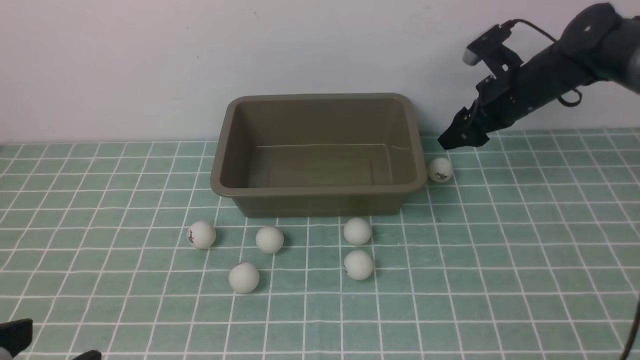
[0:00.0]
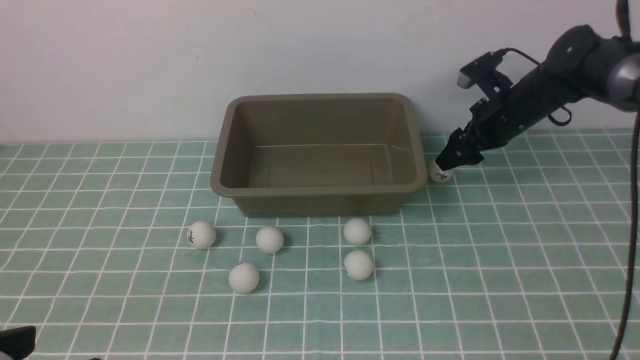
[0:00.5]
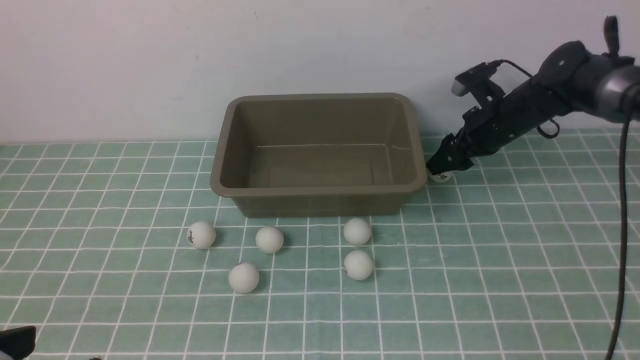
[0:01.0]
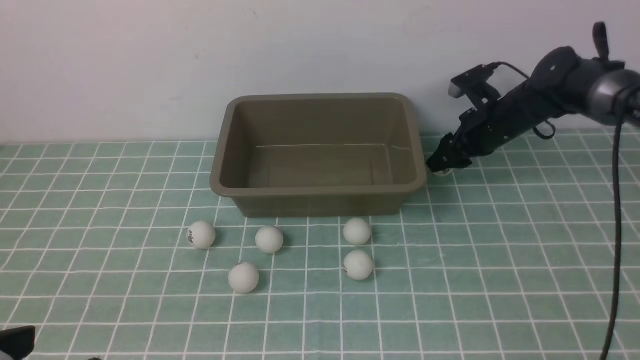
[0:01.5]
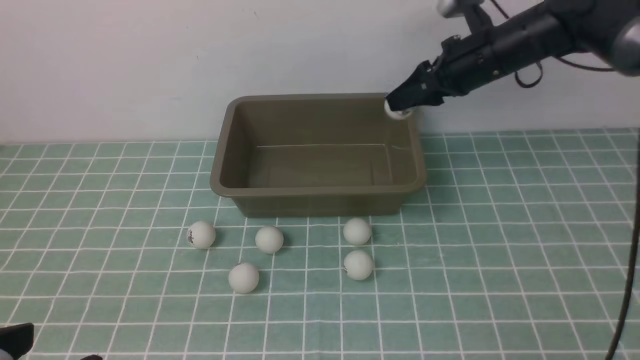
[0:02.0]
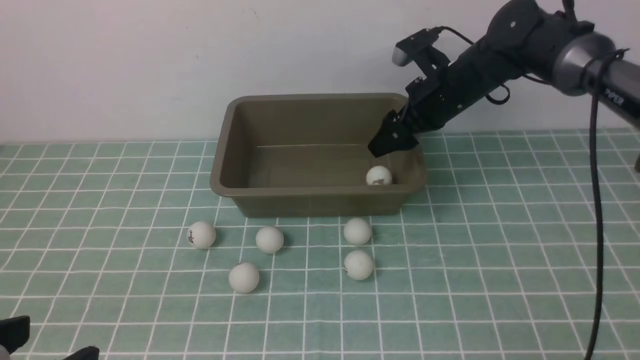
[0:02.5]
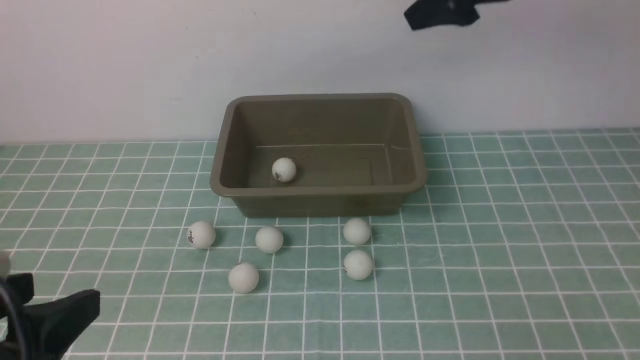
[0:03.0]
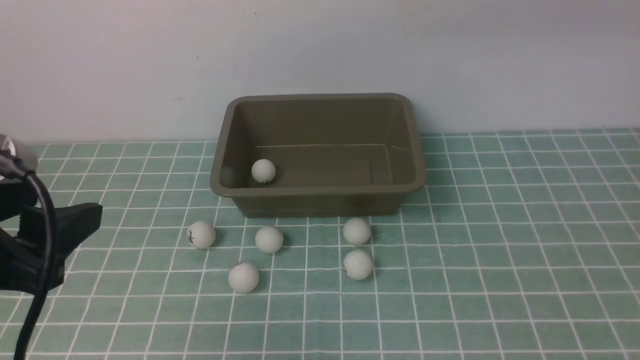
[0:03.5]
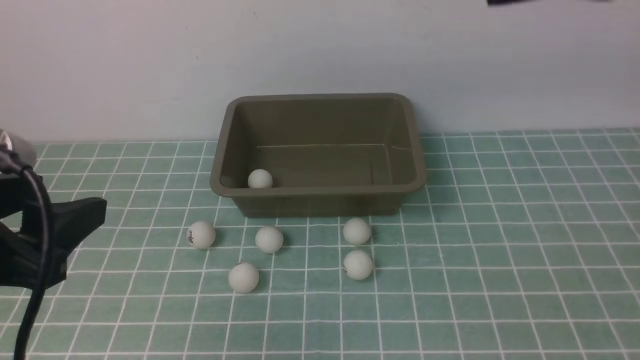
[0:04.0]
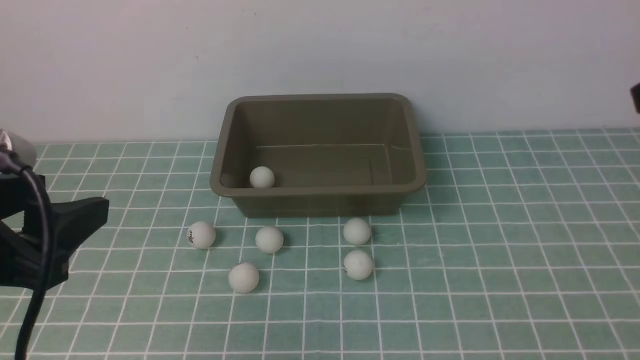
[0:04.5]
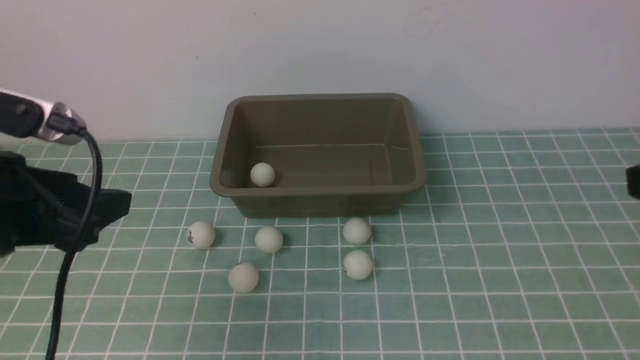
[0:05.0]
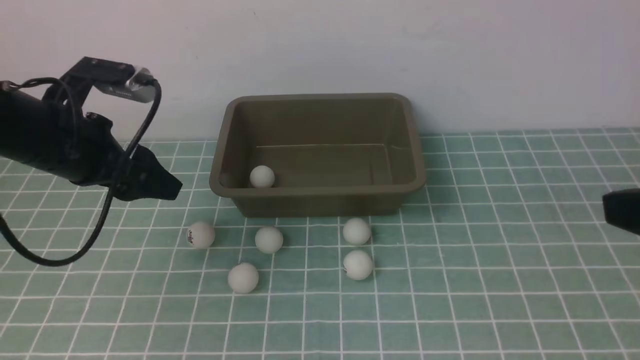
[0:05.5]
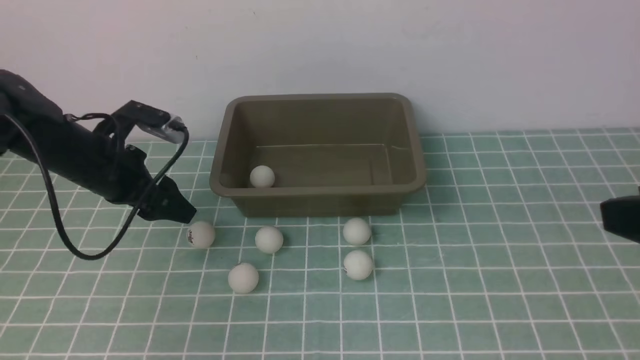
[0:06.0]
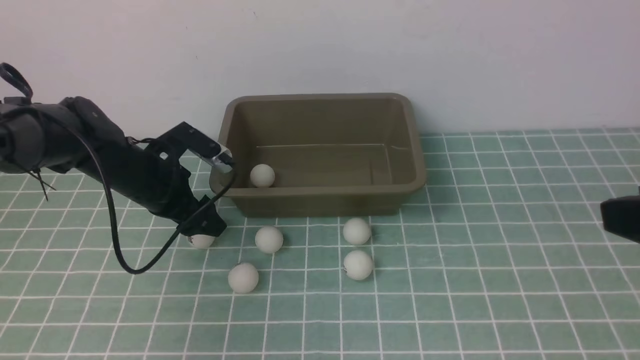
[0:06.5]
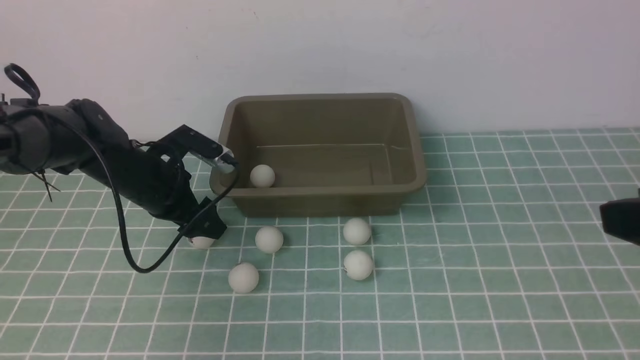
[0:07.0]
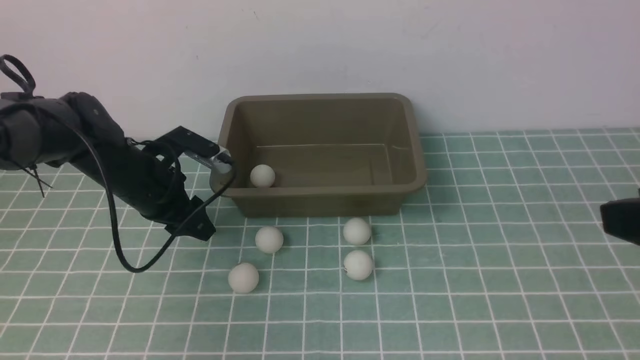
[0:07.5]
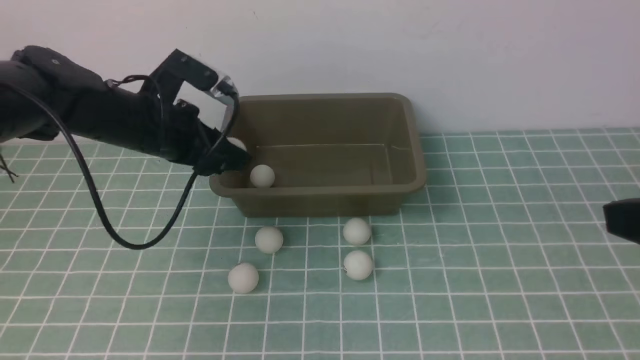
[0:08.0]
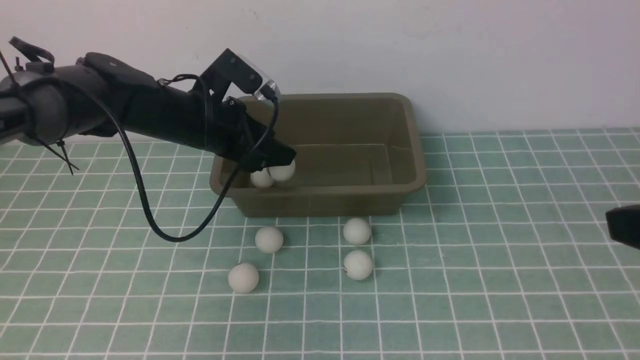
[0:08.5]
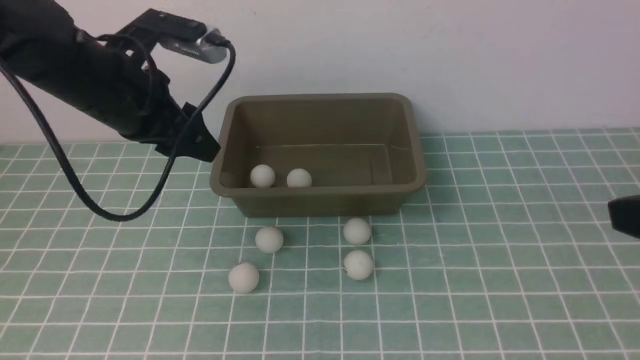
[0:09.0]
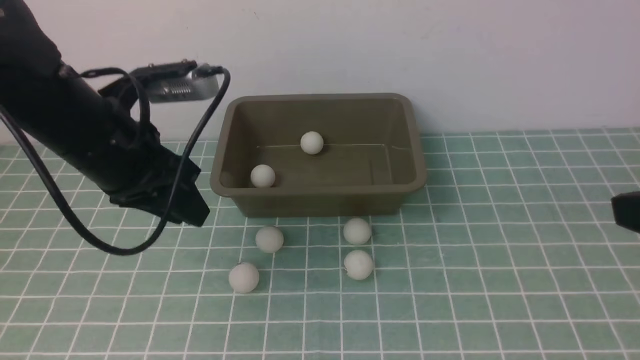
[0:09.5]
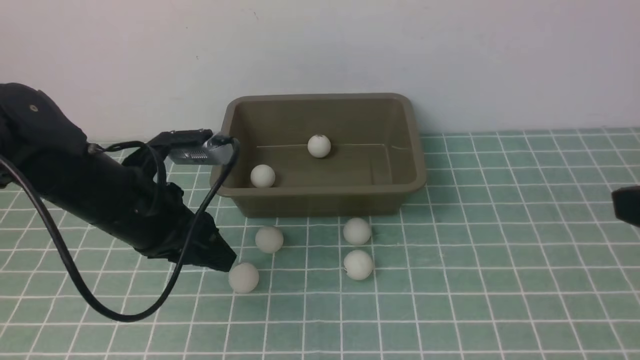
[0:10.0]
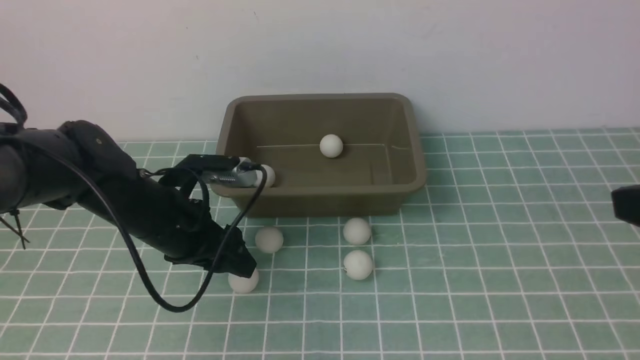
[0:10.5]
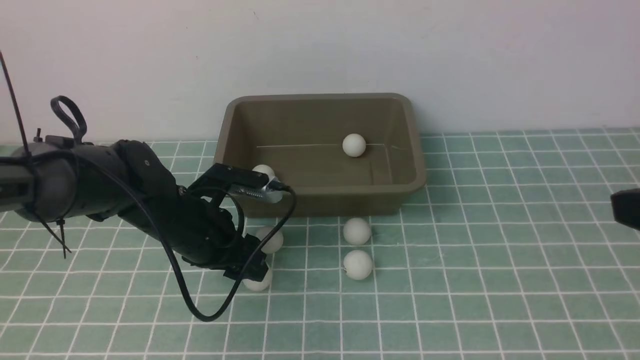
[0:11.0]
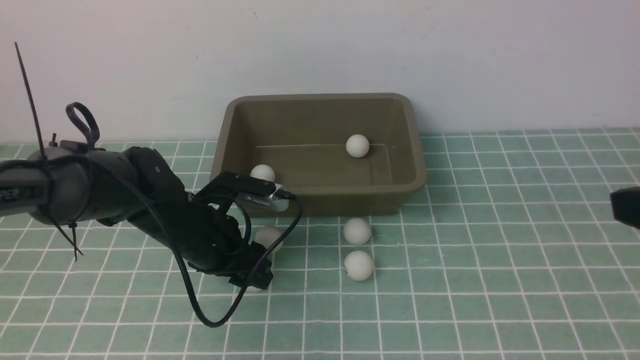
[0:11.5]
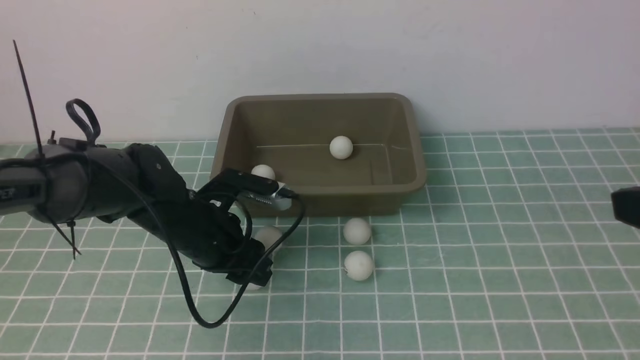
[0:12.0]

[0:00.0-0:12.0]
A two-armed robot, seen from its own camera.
Step, 0:00.0 to 0:01.5: use the right arm to clamp the table tennis ball closest to it.
Step, 0:02.0 to 0:02.5: use the right arm to put the table tennis ball into the box.
Step, 0:03.0 to 0:07.5: use the left arm to clamp the table tennis ball closest to it.
Step, 0:08.0 to 0:08.5: use the left arm to put the table tennis ball into the box.
0:00.0 to 0:02.0: The right gripper is displaced upward and to the left by roughly 15 cm, and opens its fingers.
0:02.0 to 0:04.0: The right gripper heads backward, covering about 30 cm, and closes its fingers. Meanwhile the left gripper moves forward, approximately 10 cm.
0:04.0 to 0:06.0: The left gripper shifts about 30 cm forward and downward.
0:06.0 to 0:08.0: The left gripper travels upward by approximately 5 cm, and closes its fingers.
0:08.0 to 0:10.0: The left gripper shifts some 10 cm backward.
0:10.0 to 0:12.0: The left gripper travels downward by some 5 cm.

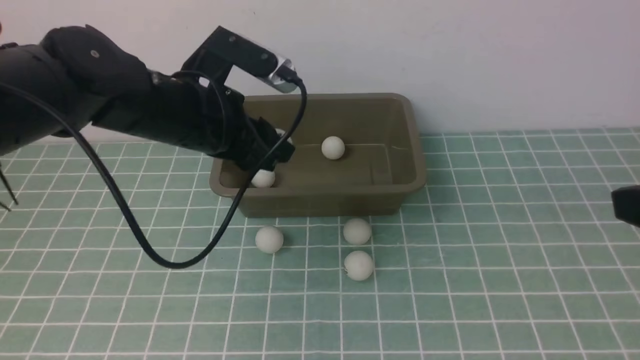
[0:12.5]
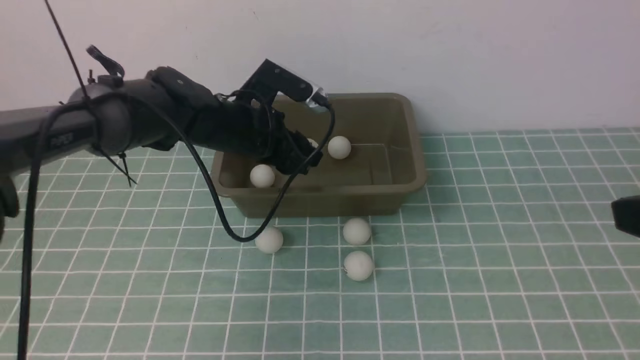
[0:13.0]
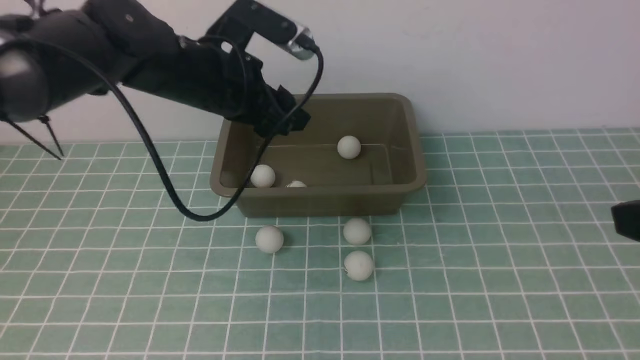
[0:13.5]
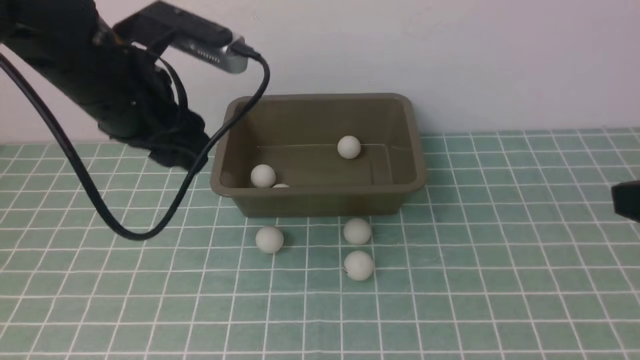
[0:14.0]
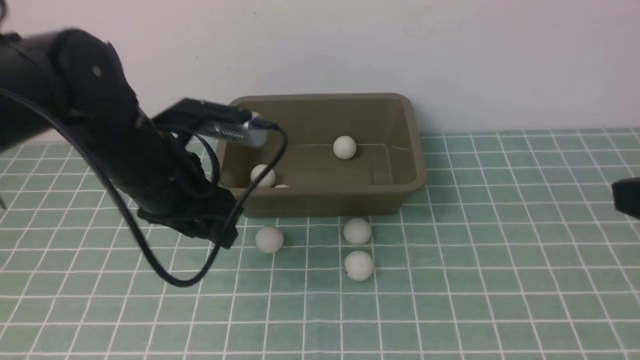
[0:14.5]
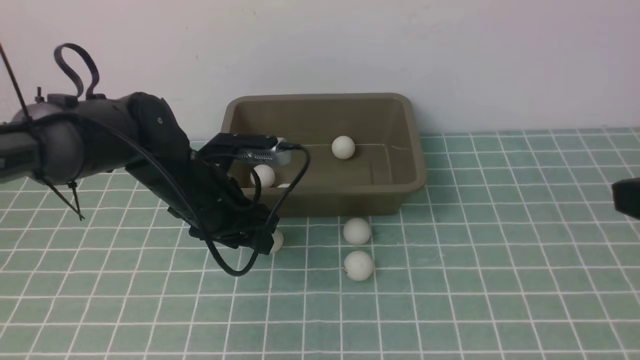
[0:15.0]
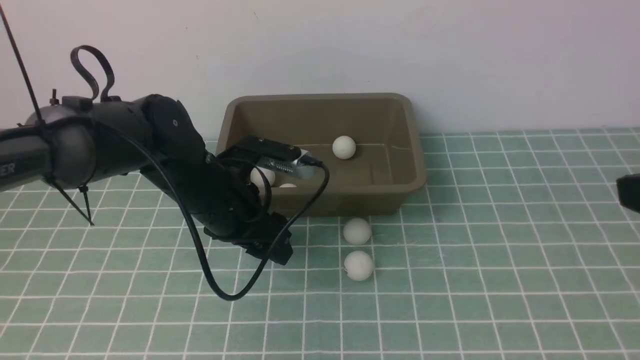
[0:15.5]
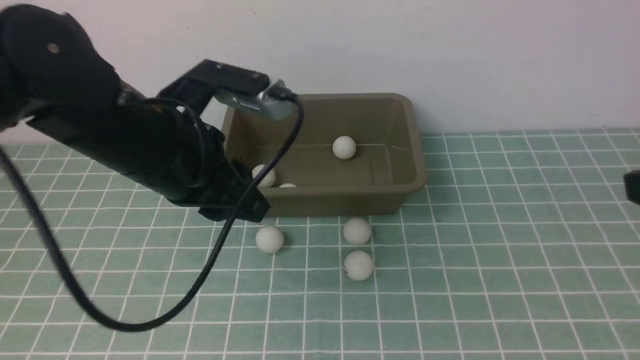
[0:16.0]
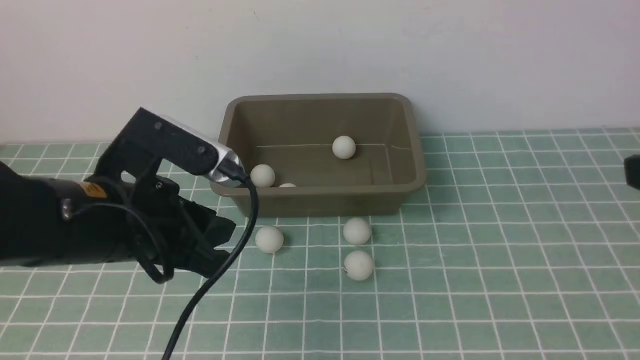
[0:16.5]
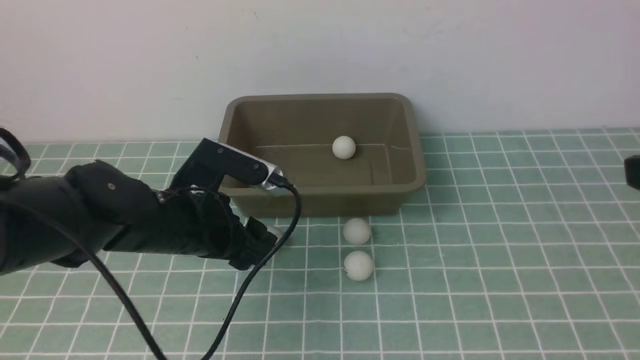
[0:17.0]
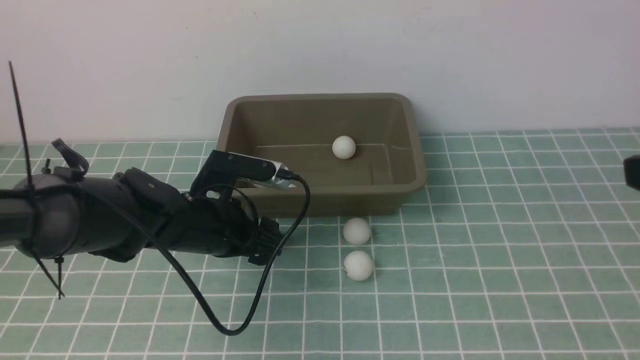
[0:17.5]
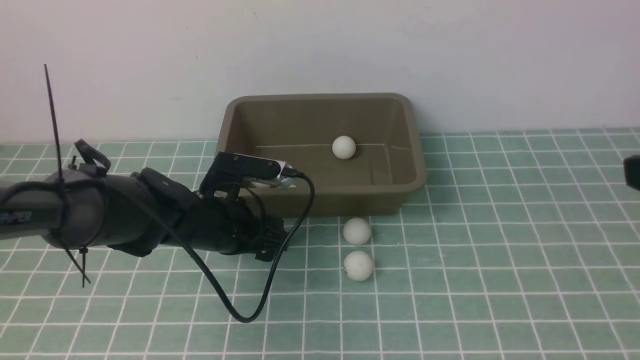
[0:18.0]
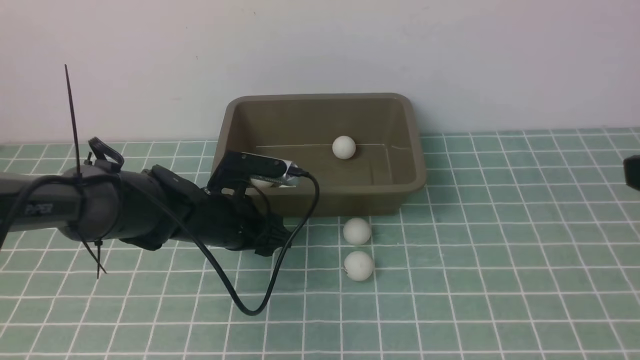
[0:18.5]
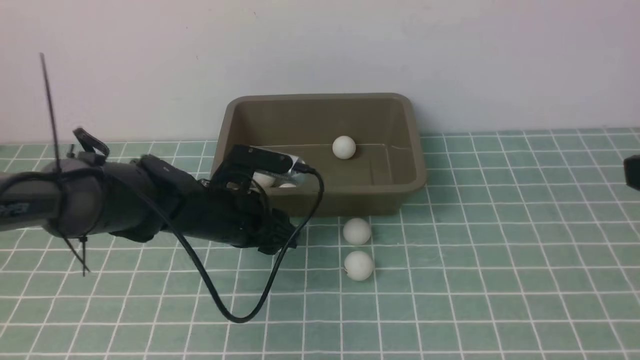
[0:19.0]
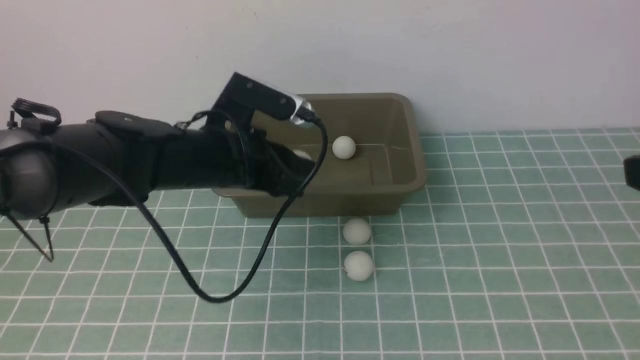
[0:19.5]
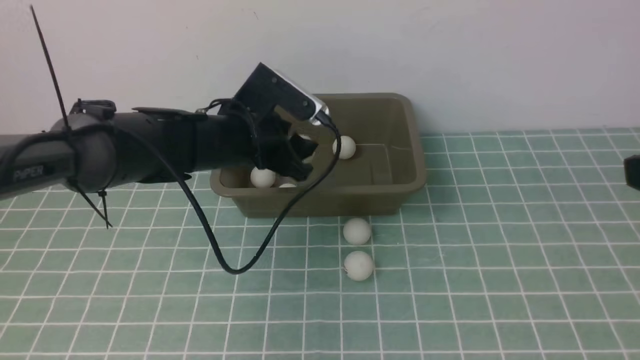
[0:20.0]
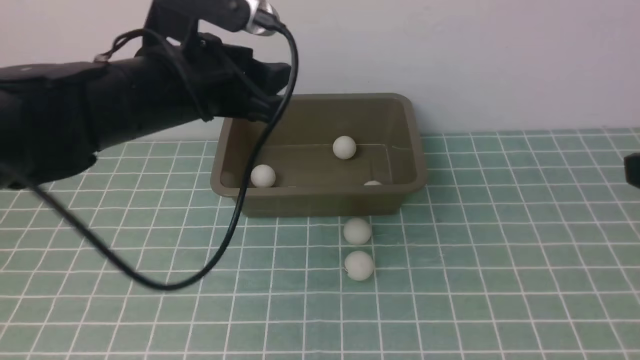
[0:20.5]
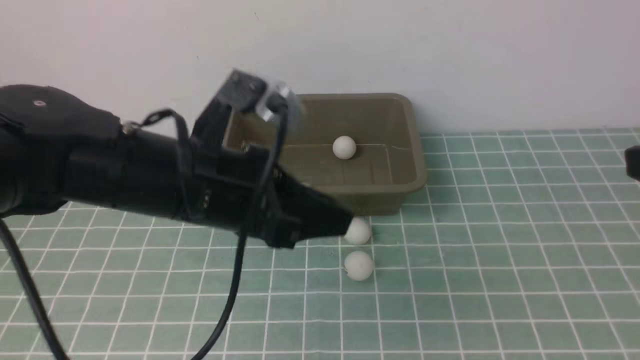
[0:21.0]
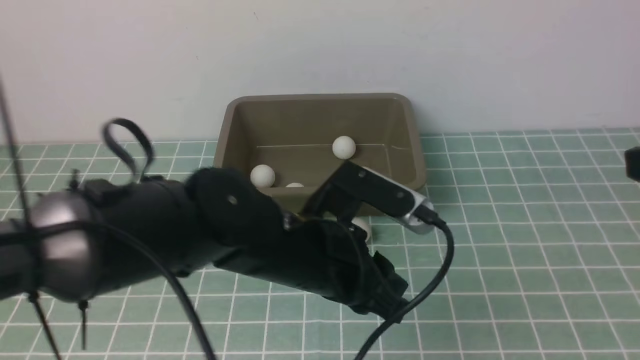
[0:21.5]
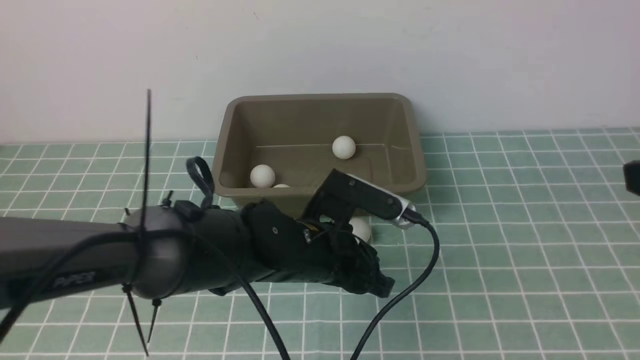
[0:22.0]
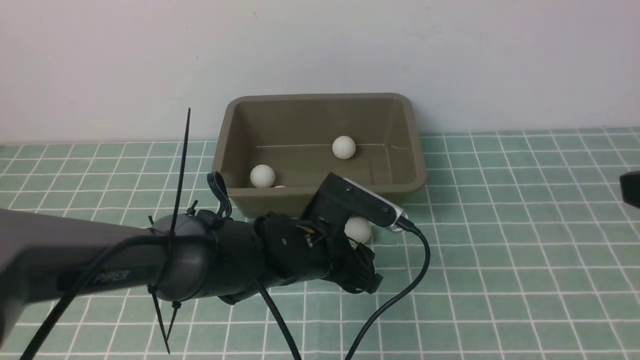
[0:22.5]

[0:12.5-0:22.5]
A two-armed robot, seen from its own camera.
Step, 0:12.5 to 0:13.0: use the left arm to put the table tennis ball into the box.
Step, 0:13.5 to 0:19.0: use the left arm to clamp the table tennis ball closest to it.
Step, 0:19.5 to 0:20.0: use the left arm to put the table tennis ball into the box.
0:12.5 to 0:14.5: The left gripper moves up and down over approximately 10 cm, changing direction 2 times.
0:14.5 to 0:16.5: The left gripper goes up and down, roughly 10 cm each way, reversing 2 times, and closes its fingers.
0:16.5 to 0:18.5: The left gripper heads downward and forward, covering some 15 cm, and opens its fingers.
0:18.5 to 0:20.5: The left gripper is displaced upward by approximately 20 cm.
0:20.5 to 0:22.5: The left gripper goes roughly 20 cm downward and to the right, and closes, then reopens.
